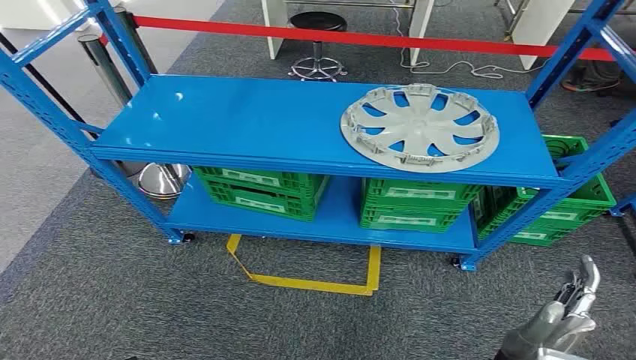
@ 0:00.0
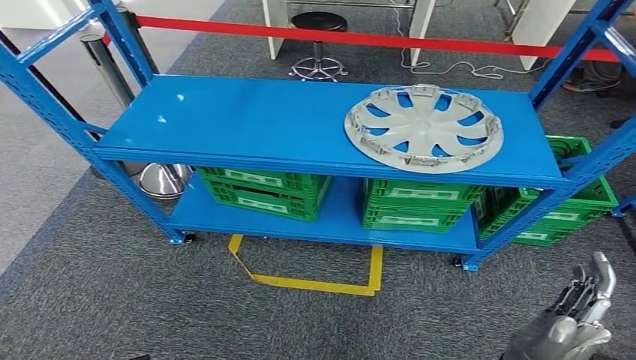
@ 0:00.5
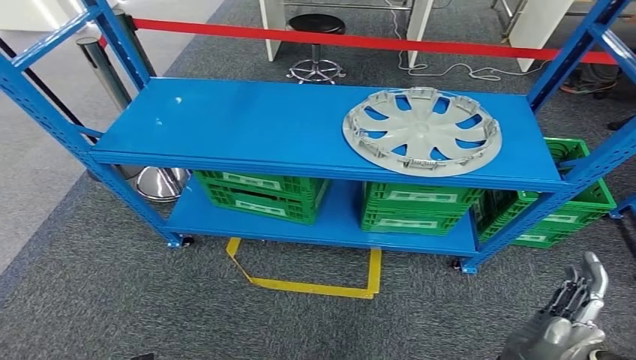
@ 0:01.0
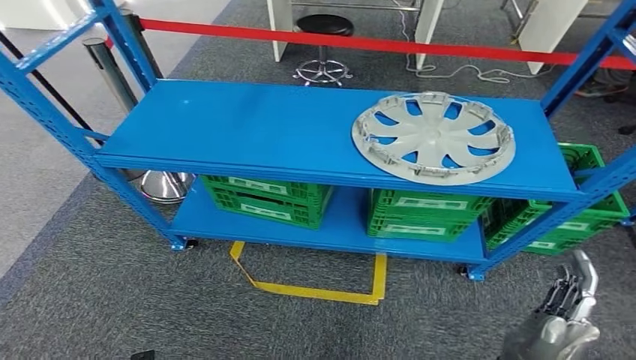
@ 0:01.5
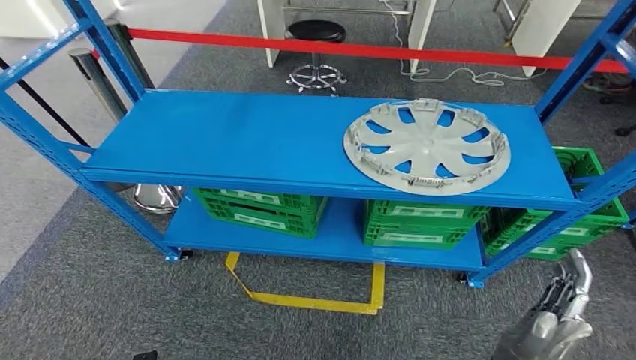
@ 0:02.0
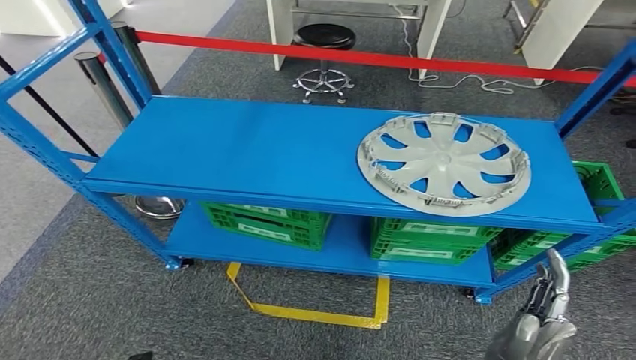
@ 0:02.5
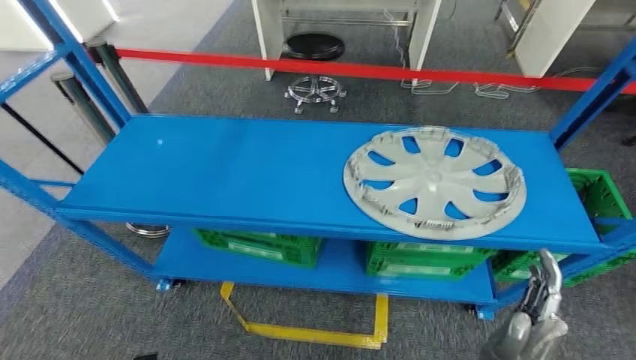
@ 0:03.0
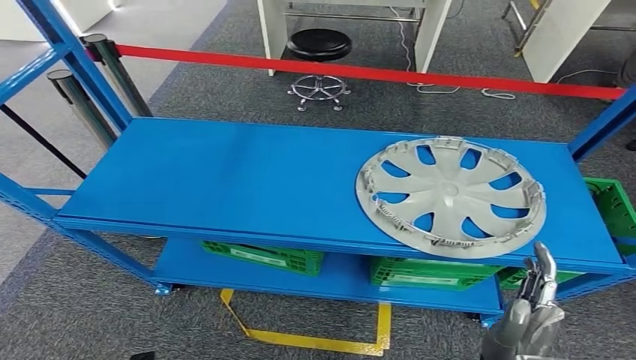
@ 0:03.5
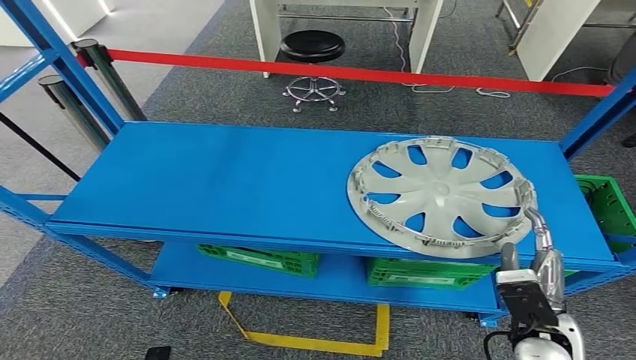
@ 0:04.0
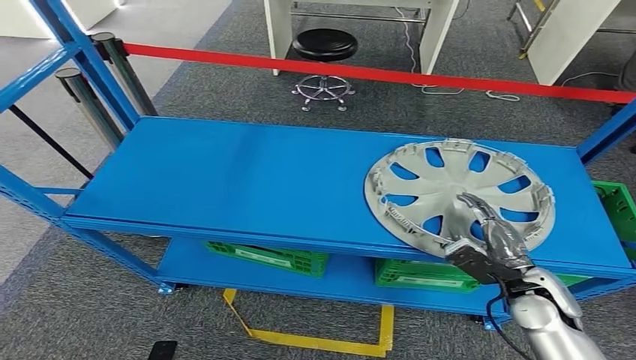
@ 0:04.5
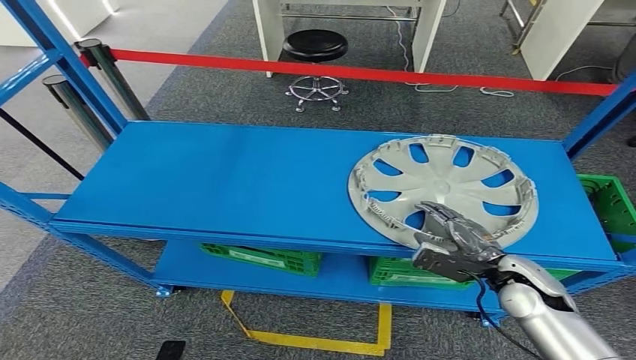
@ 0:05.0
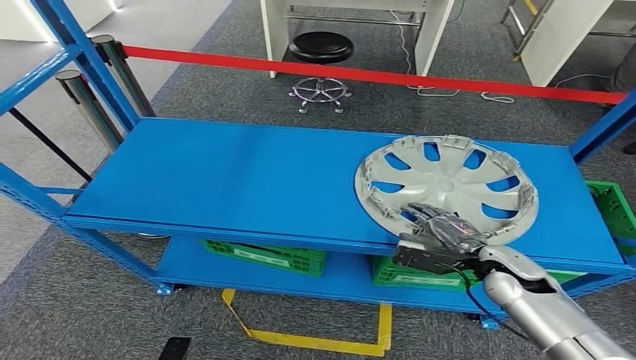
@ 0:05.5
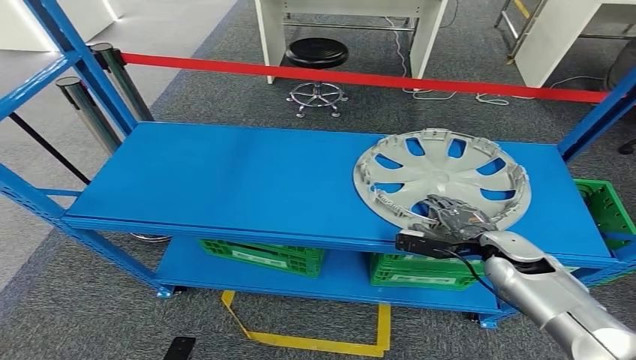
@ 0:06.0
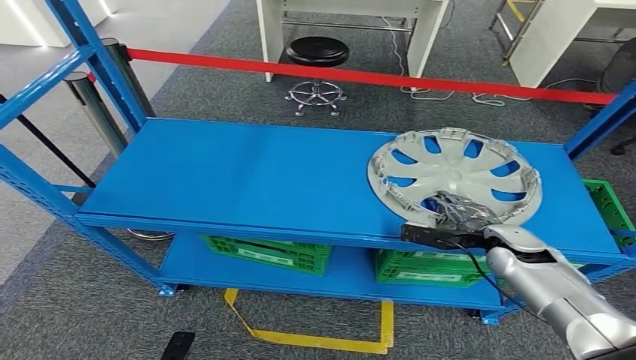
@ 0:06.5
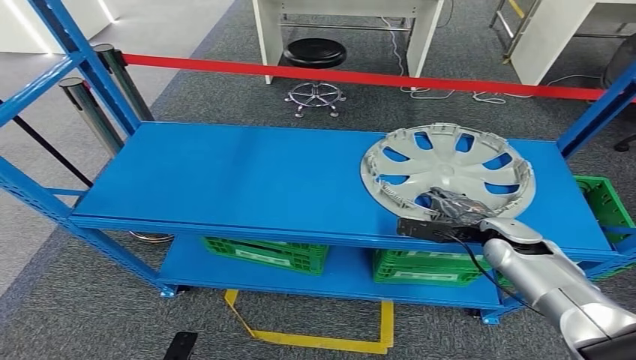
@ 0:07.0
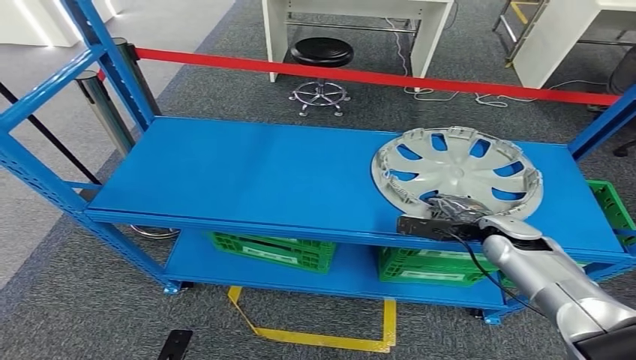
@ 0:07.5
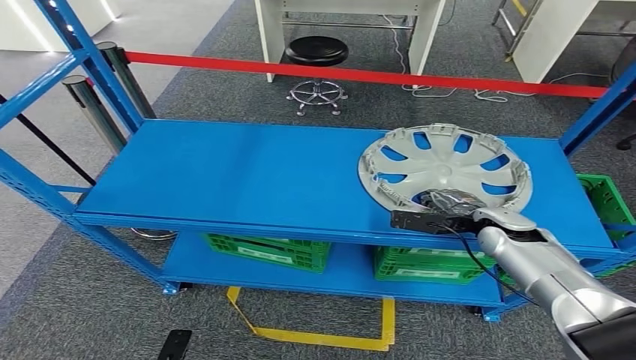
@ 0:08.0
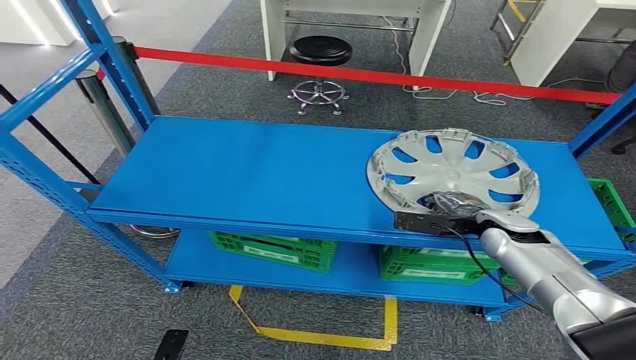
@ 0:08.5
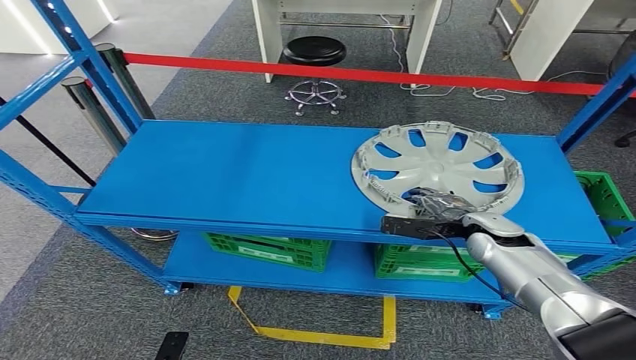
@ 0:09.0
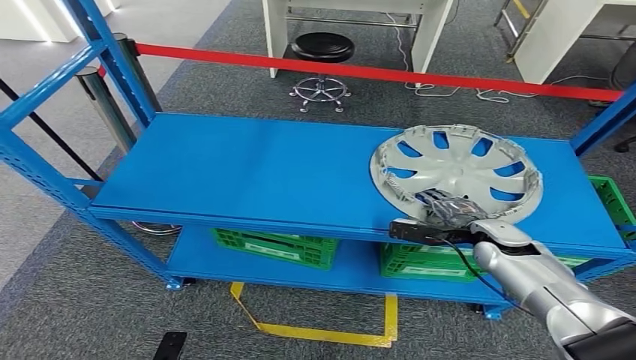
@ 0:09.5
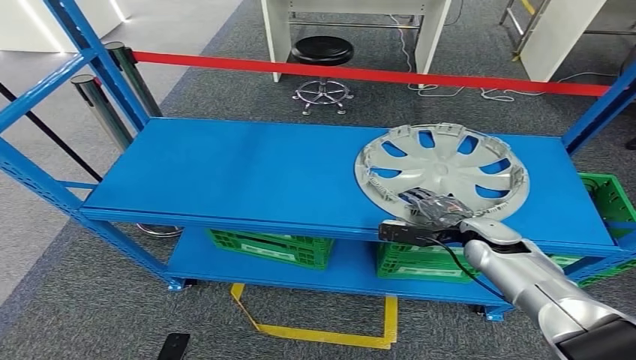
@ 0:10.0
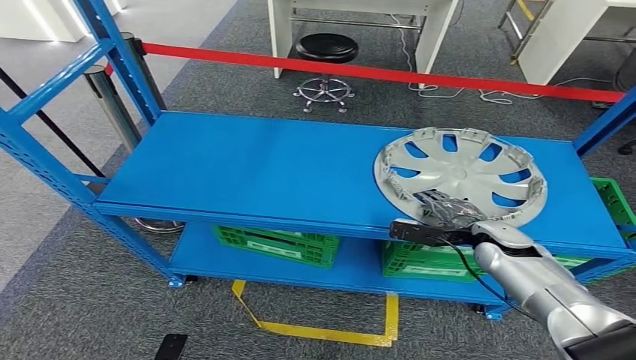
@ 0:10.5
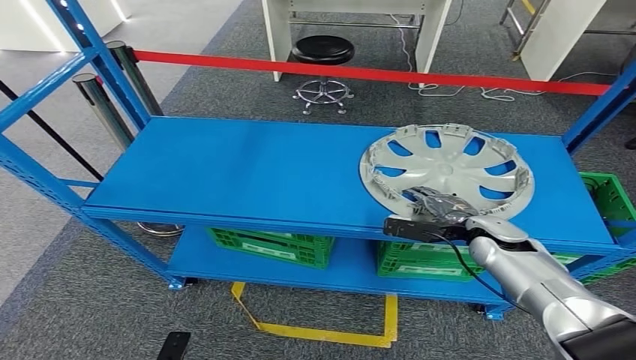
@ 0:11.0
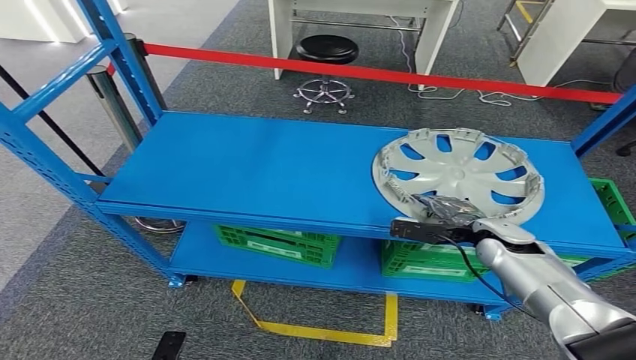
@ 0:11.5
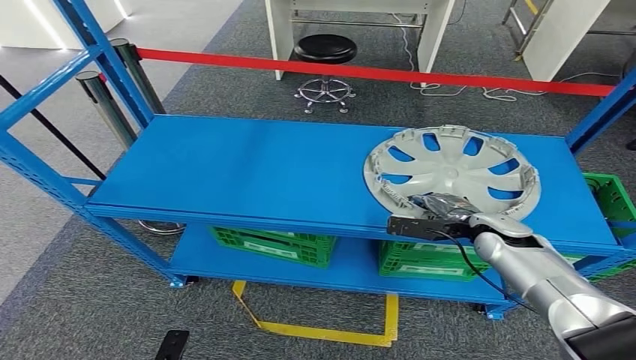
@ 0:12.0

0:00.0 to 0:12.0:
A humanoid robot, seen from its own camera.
0:10.0 to 0:12.0: The hands make only small movements.

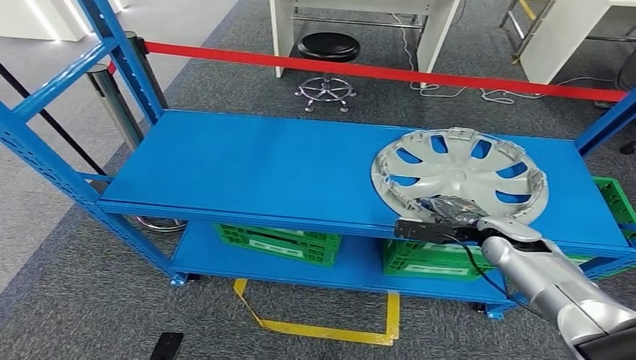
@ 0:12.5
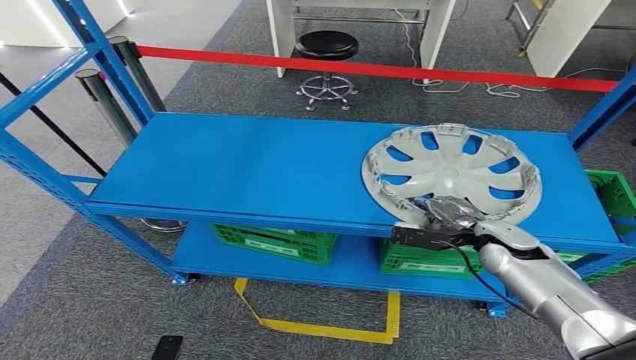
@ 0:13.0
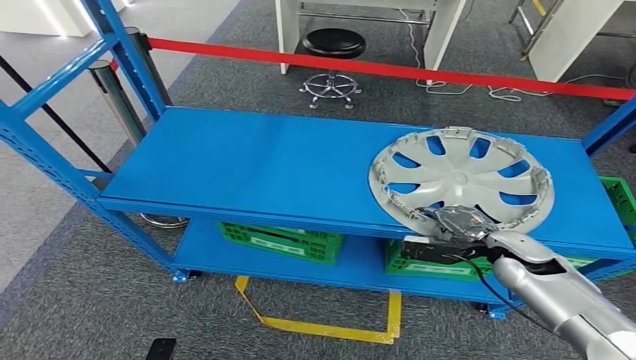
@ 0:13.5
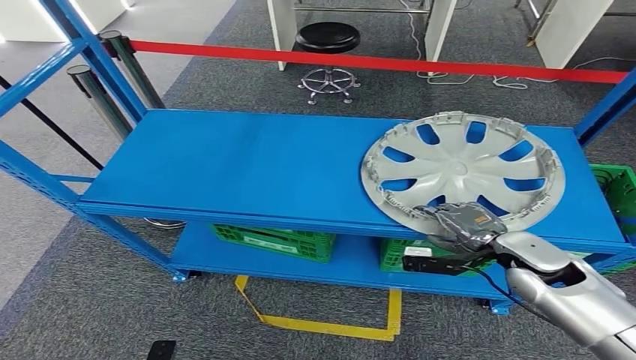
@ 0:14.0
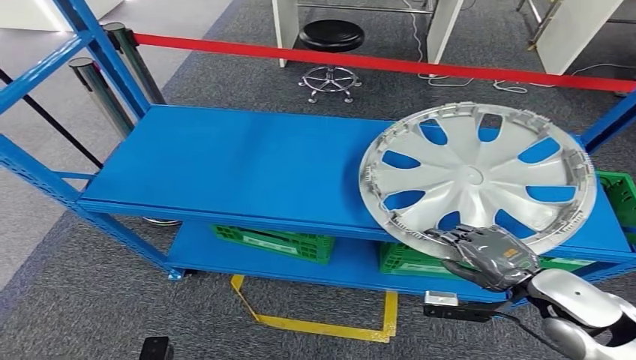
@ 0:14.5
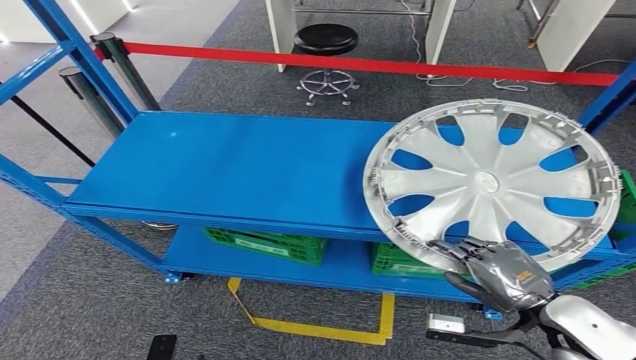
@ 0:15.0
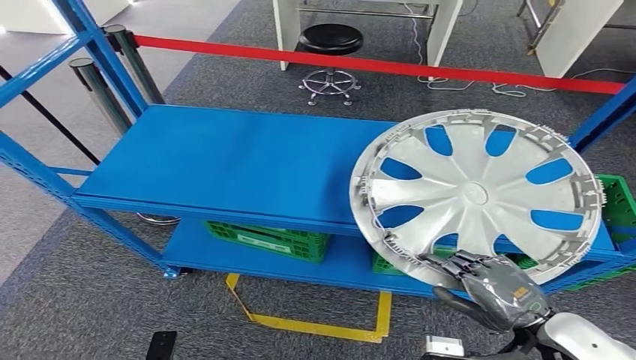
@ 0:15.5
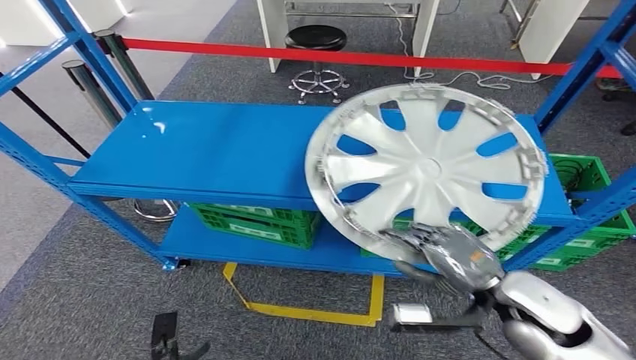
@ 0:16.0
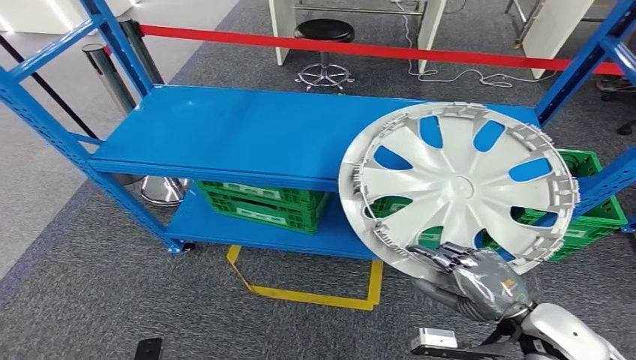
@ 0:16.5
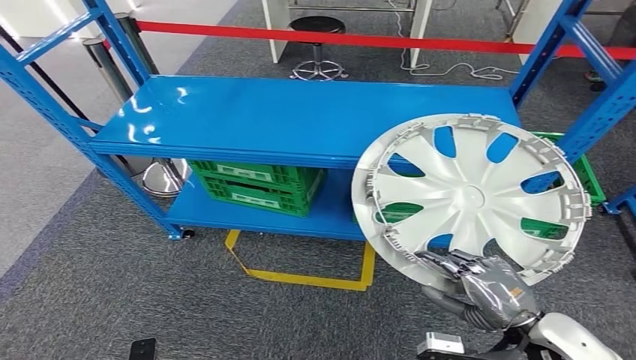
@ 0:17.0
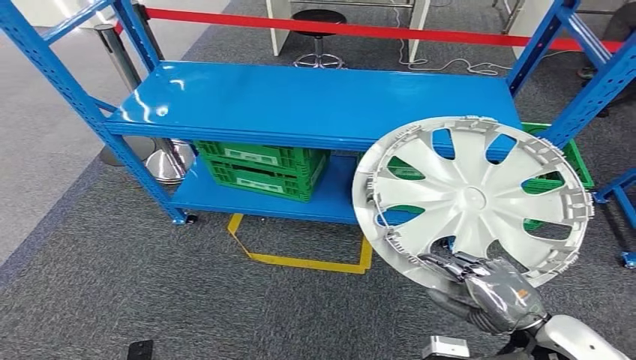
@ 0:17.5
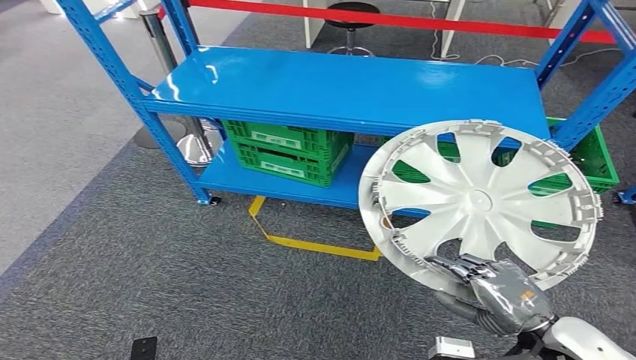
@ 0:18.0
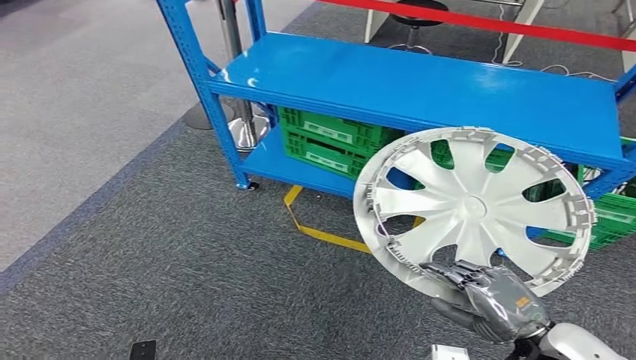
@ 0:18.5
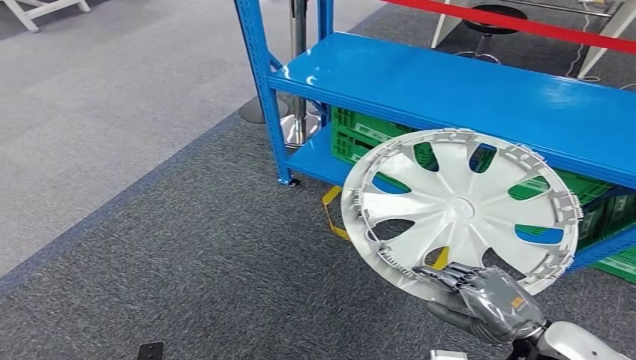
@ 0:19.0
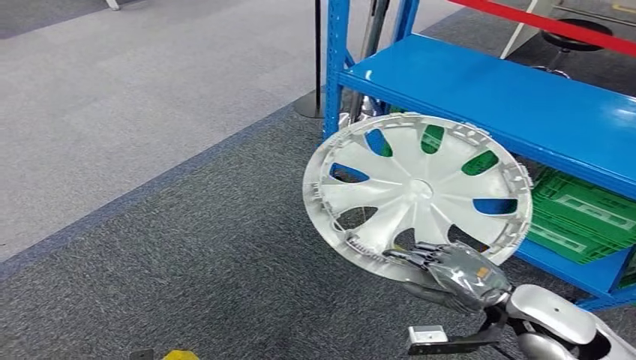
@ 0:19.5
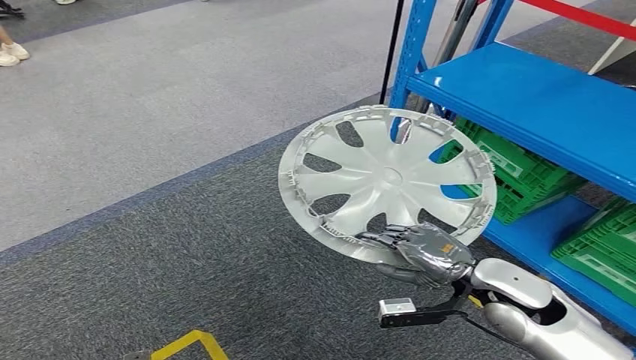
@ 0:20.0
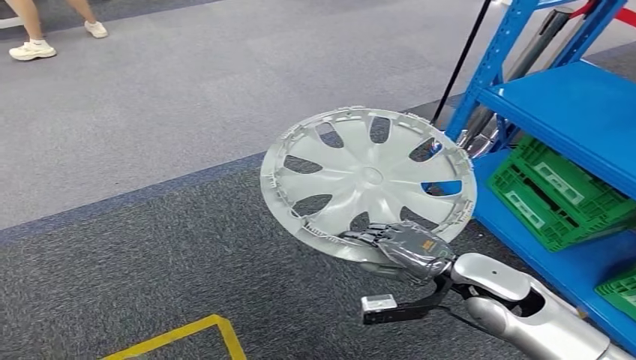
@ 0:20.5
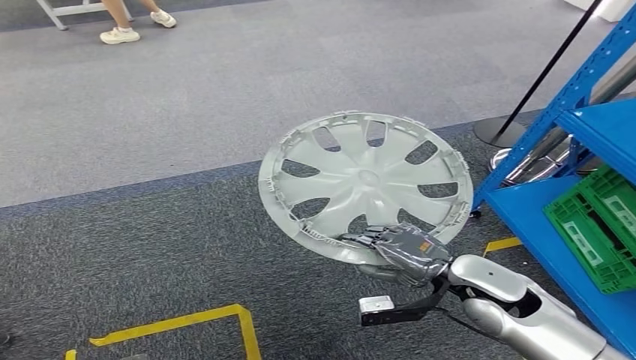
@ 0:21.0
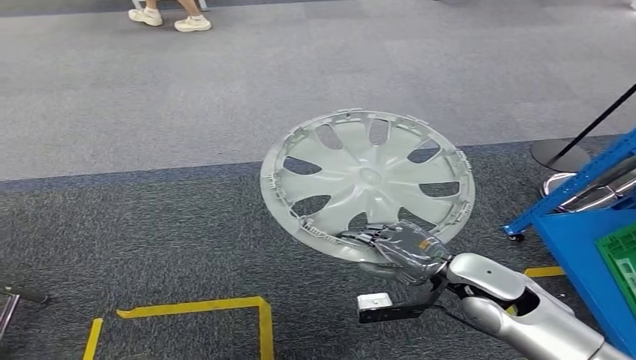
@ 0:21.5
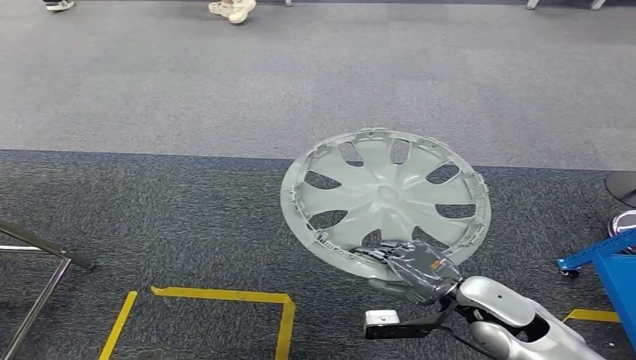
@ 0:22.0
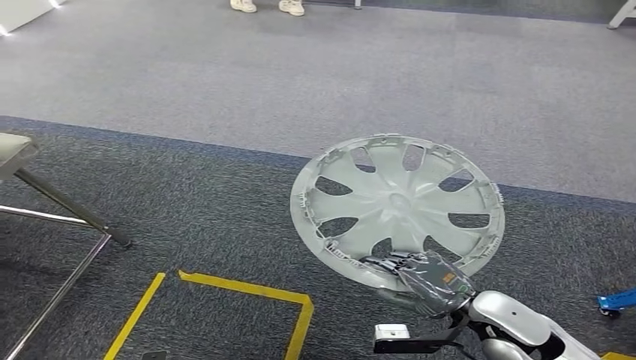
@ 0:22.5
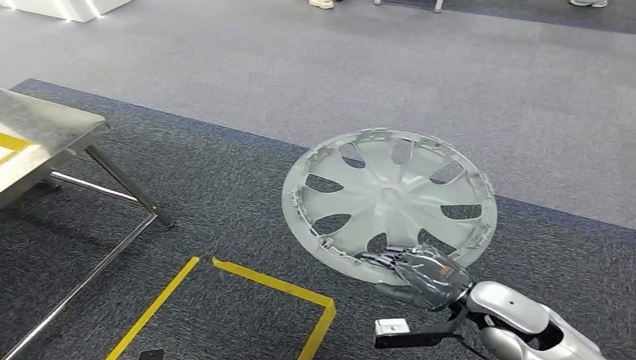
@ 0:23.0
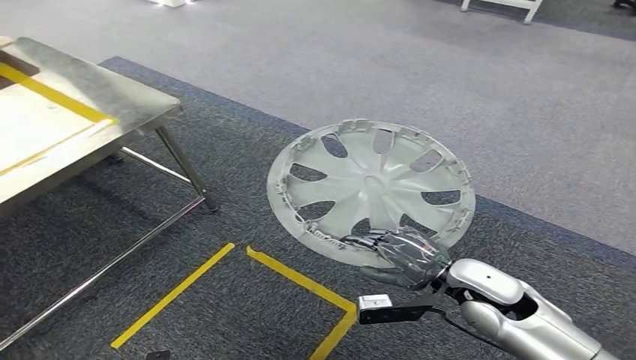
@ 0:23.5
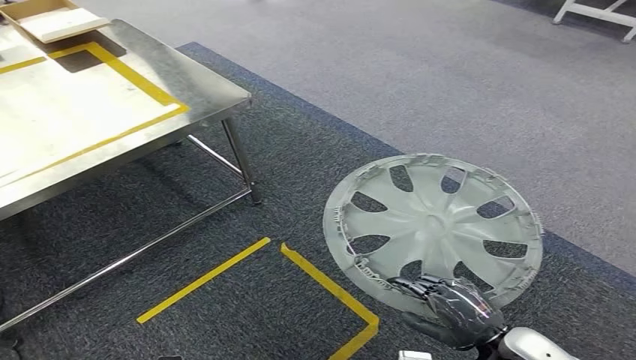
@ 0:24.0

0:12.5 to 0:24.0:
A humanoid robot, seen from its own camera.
Step, 0:12.5 to 0:16.0: Take small components from the rack.
